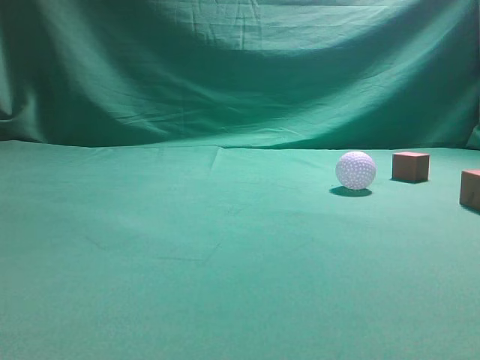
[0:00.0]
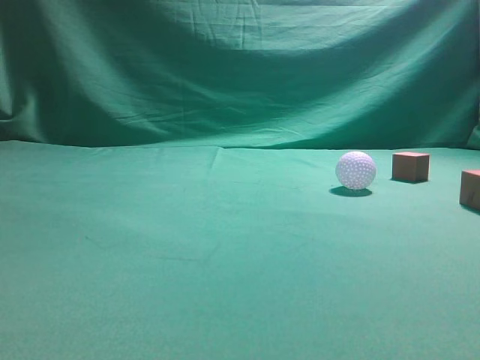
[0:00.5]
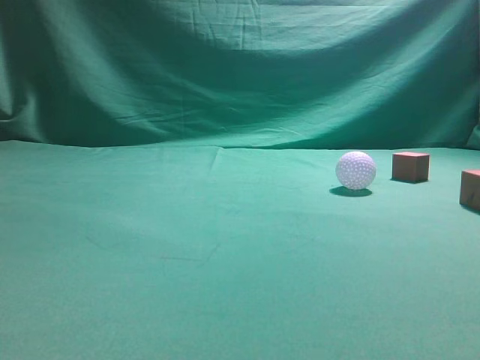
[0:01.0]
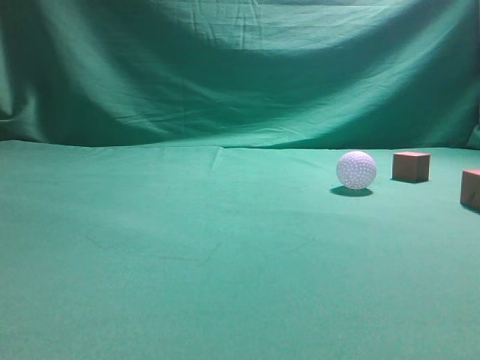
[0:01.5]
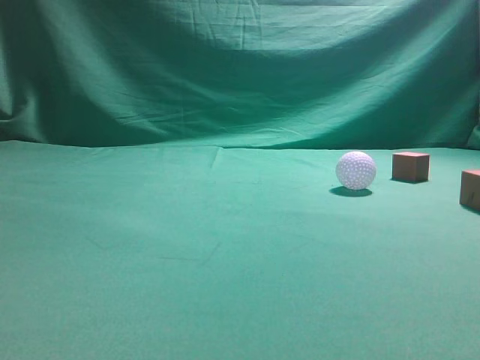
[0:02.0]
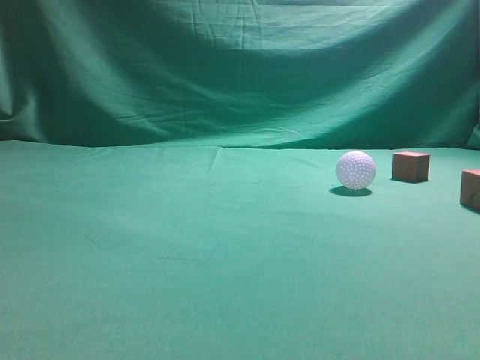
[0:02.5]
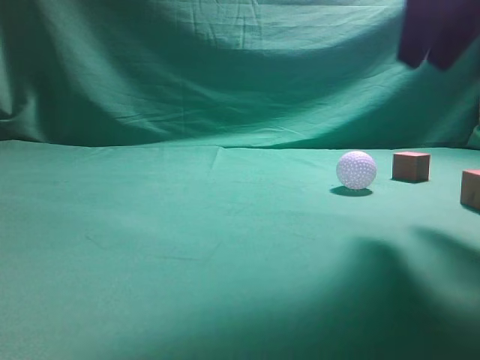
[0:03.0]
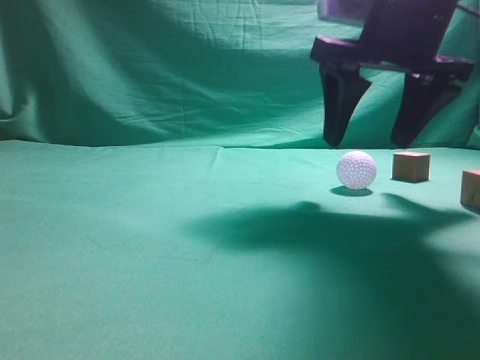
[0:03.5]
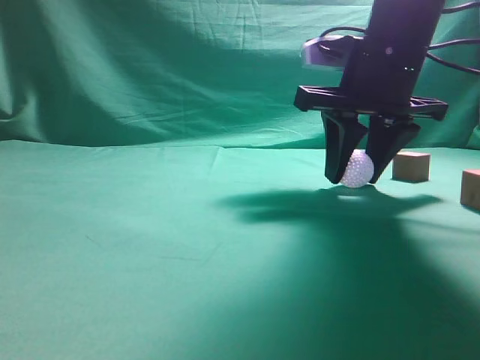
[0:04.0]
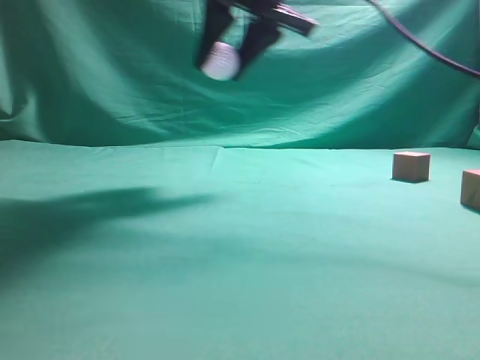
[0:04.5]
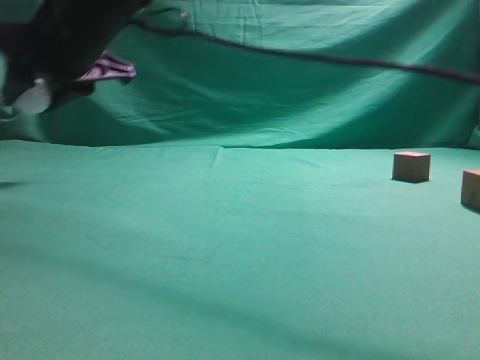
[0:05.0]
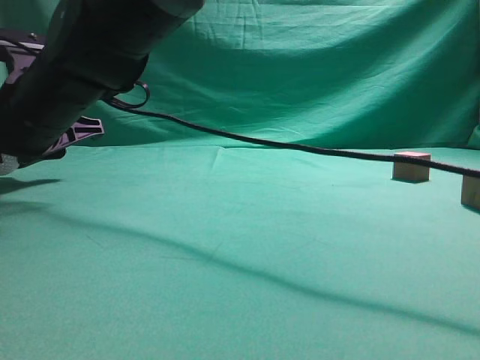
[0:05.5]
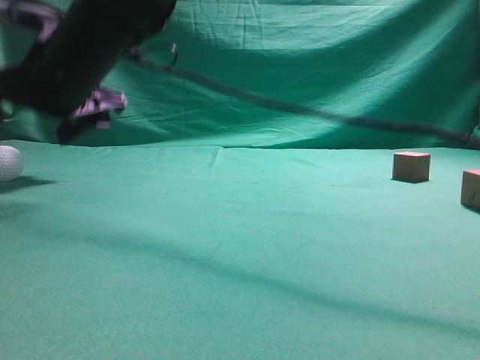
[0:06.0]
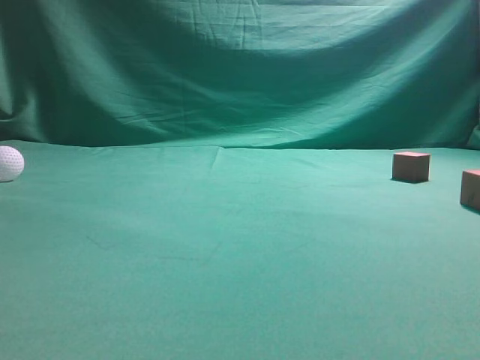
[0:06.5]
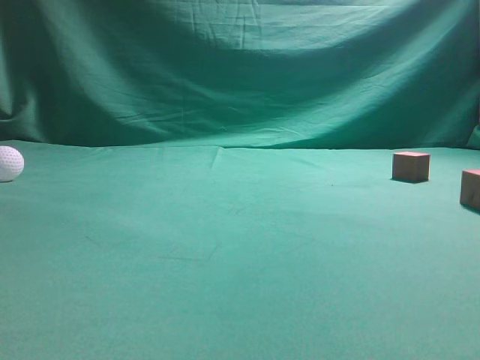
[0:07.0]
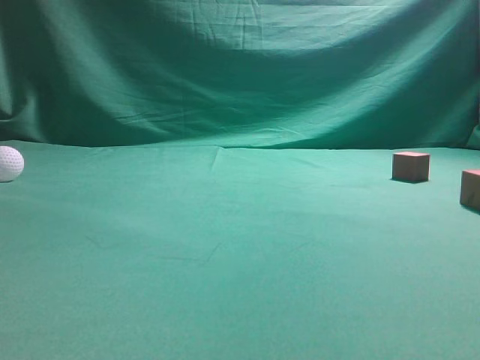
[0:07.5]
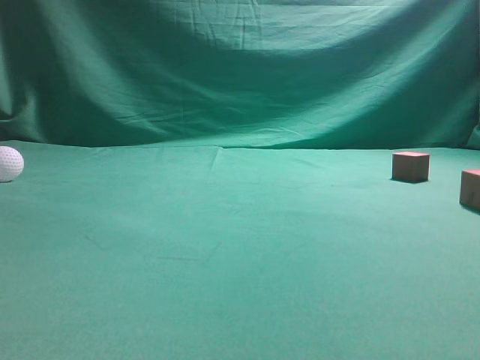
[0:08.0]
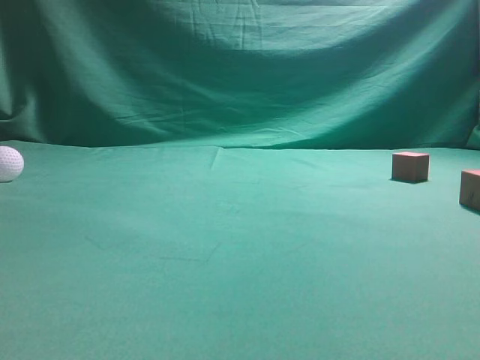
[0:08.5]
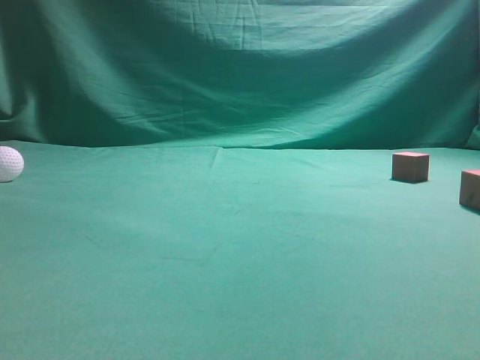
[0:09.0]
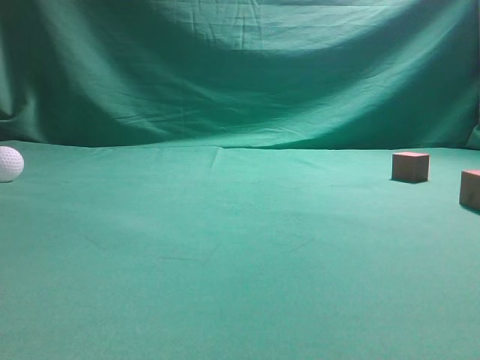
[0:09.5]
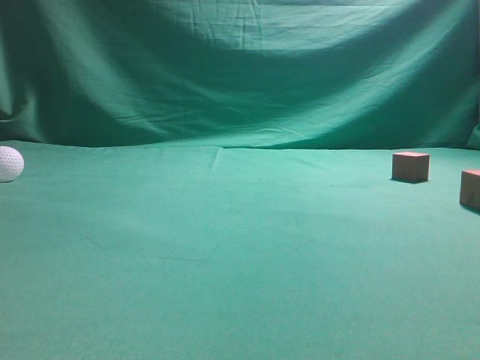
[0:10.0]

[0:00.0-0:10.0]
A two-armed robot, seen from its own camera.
Step, 0:00.0 to 0:04.0: Grasp the spherical object on the right side.
0:02.0 to 0:04.0: The right gripper heads forward, to the left and downward, covering about 35 cm, and opens.
0:04.0 to 0:06.0: The right gripper goes approximately 30 cm to the left, and opens.
0:06.0 to 0:08.0: The right gripper is displaced to the right, backward and upward by approximately 50 cm, and closes.
